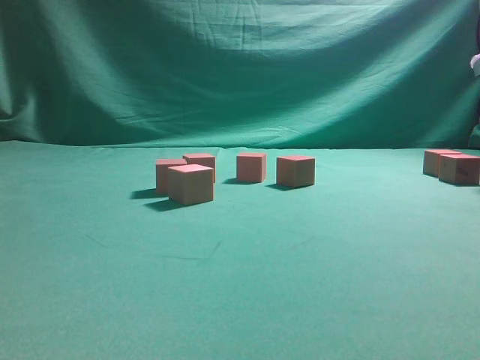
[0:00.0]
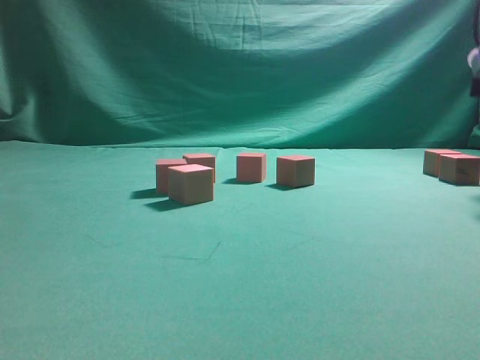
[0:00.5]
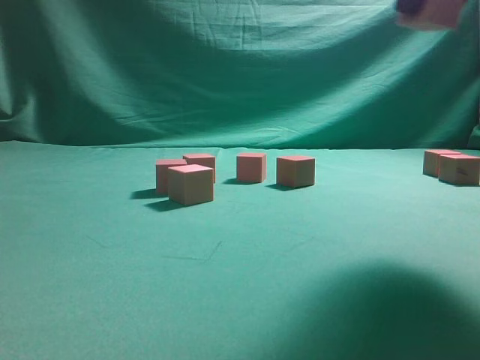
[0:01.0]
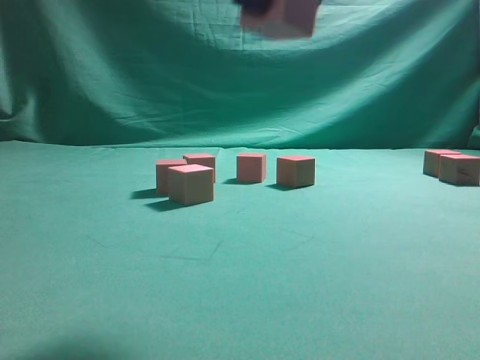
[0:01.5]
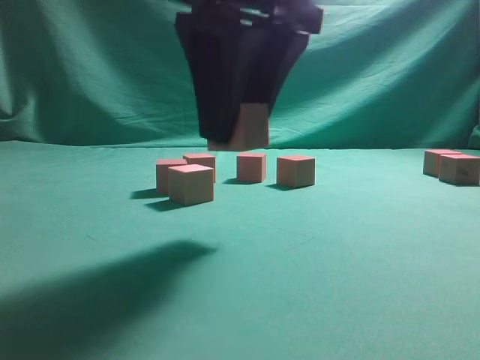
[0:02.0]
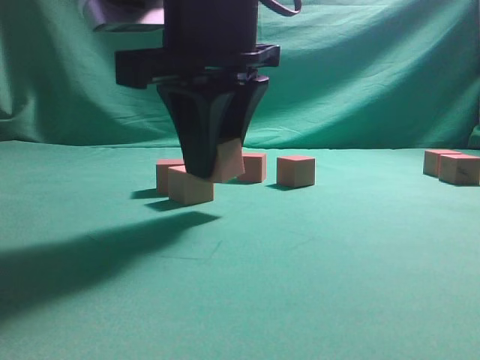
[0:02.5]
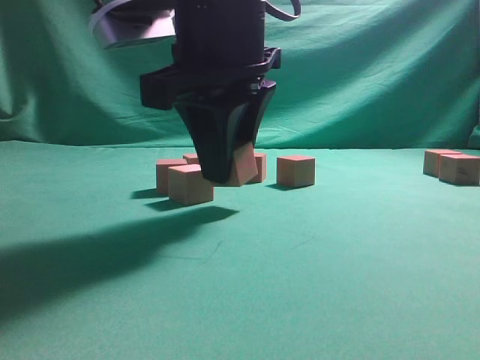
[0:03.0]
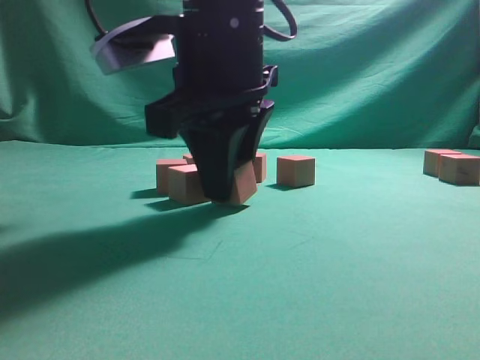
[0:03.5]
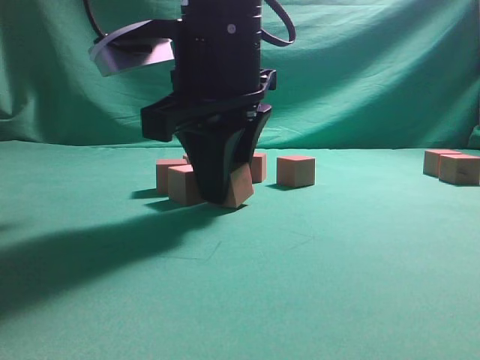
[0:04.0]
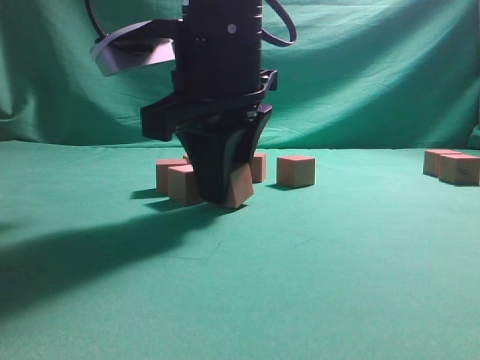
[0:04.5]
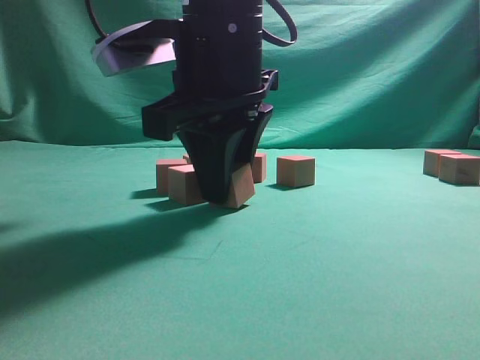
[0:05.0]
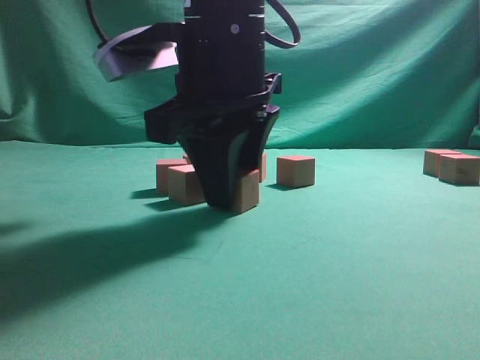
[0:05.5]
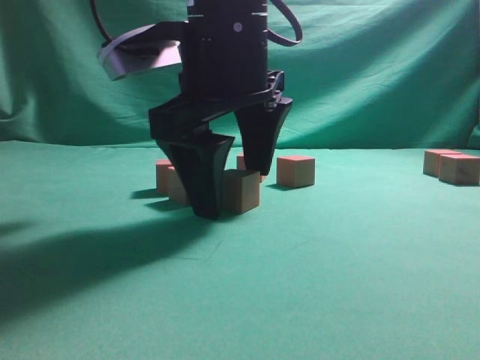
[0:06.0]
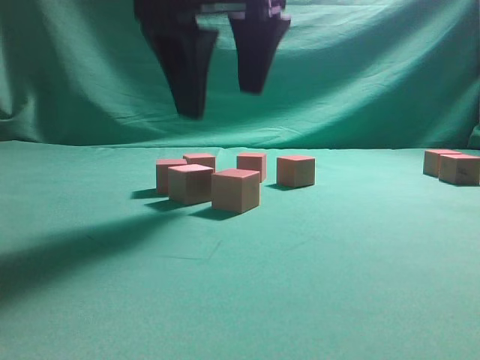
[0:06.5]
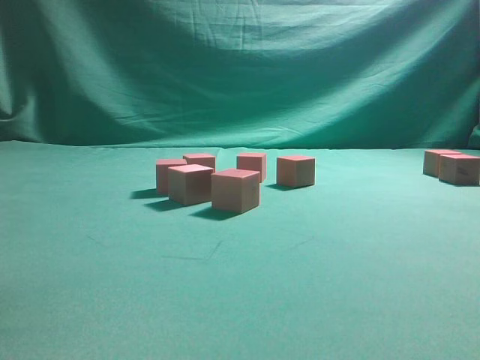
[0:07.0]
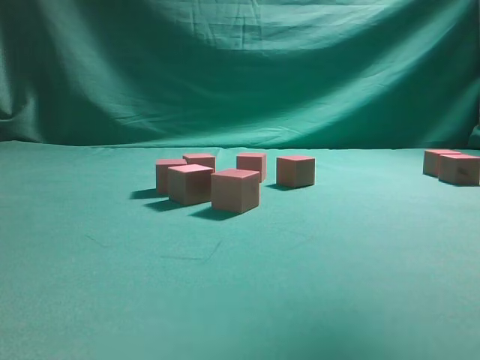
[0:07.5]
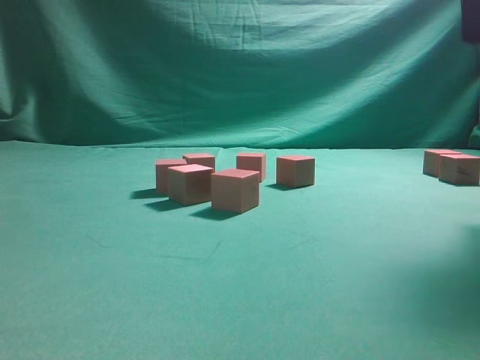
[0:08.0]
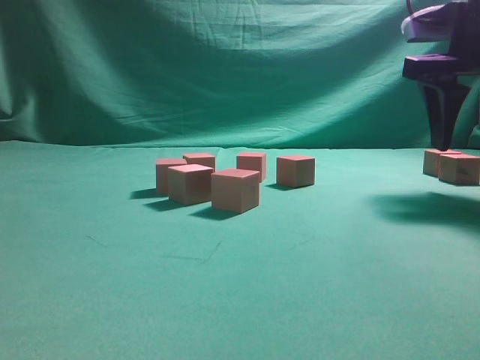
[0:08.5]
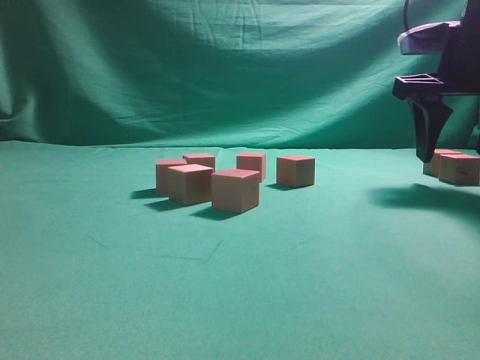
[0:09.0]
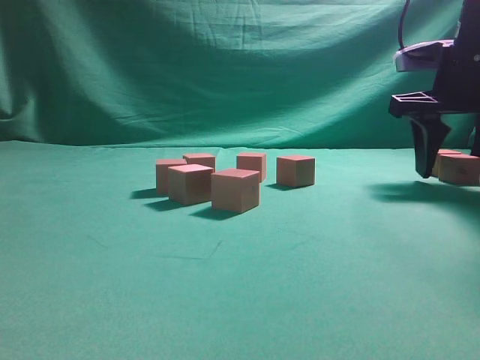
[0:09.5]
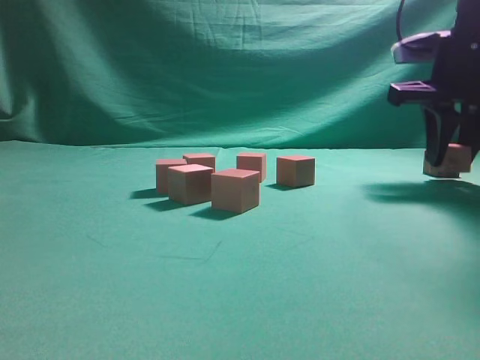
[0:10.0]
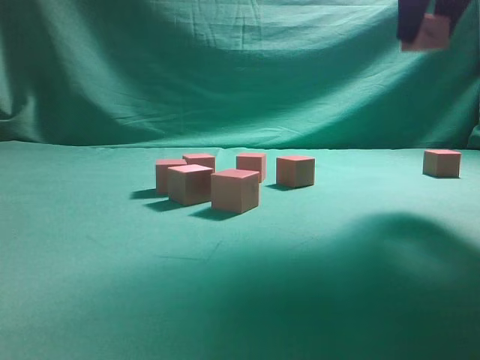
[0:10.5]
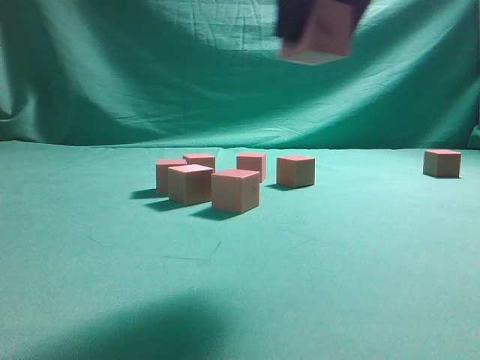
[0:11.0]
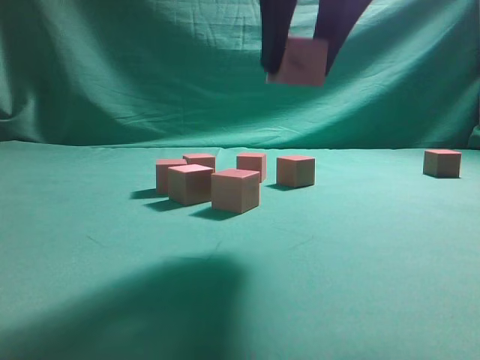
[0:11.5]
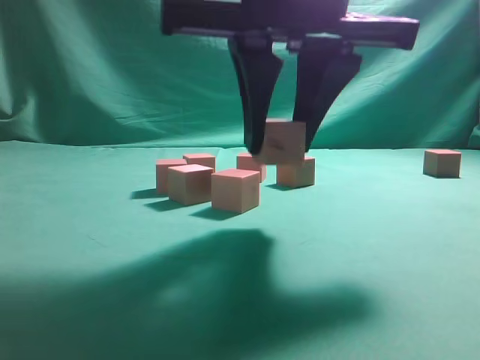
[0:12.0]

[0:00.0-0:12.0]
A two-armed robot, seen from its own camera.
Task of the whole recording: pick up the multiple cubes in two columns one by one and place them in another position on the table.
Step, 0:02.0 to 0:06.5: Place the block at the correct position to assemble the letter S.
Step, 0:07.0 to 0:10.0: Pick up the block on the table.
0:00.0 to 0:02.0: The right gripper goes roughly 35 cm to the left and backward.
0:02.0 to 0:04.0: The right gripper shifts about 10 cm forward and downward.
0:04.0 to 0:06.0: The right gripper opens its fingers.
0:06.0 to 0:08.0: The right gripper travels to the right and upward by some 30 cm.
0:08.0 to 0:10.0: The right gripper moves downward and forward, some 15 cm, and closes.
0:10.0 to 0:12.0: The right gripper heads to the left and backward, covering roughly 25 cm.

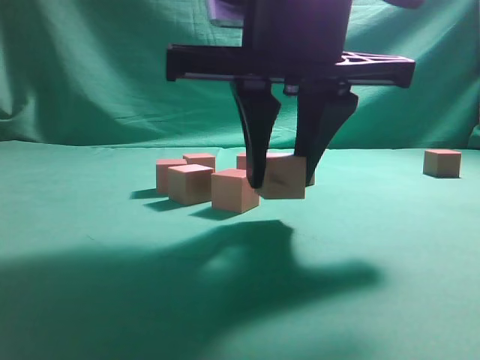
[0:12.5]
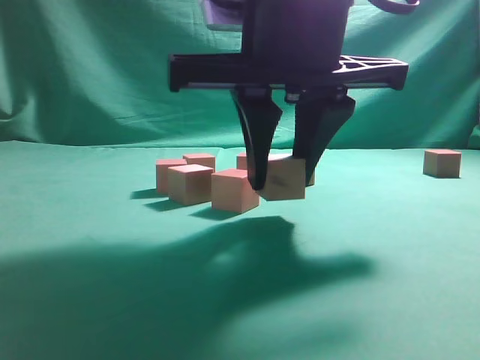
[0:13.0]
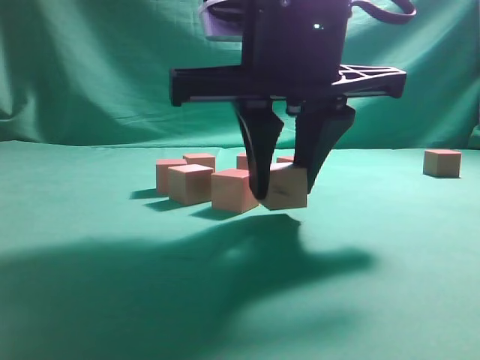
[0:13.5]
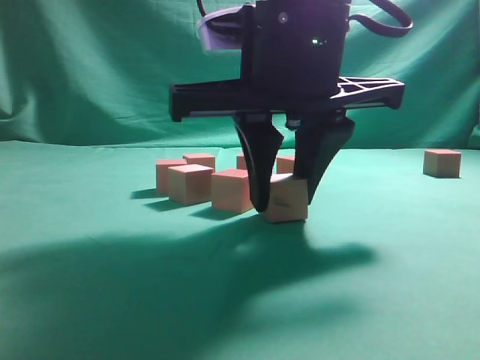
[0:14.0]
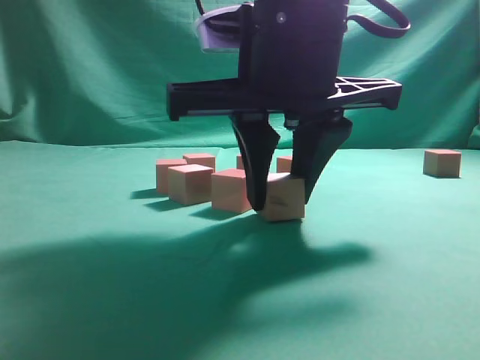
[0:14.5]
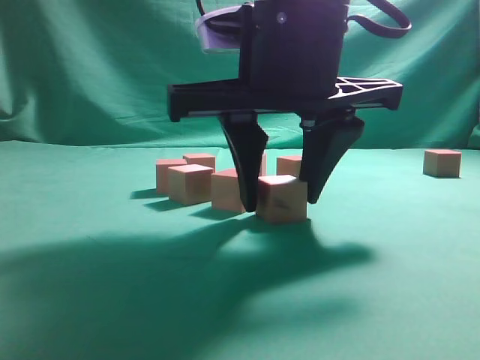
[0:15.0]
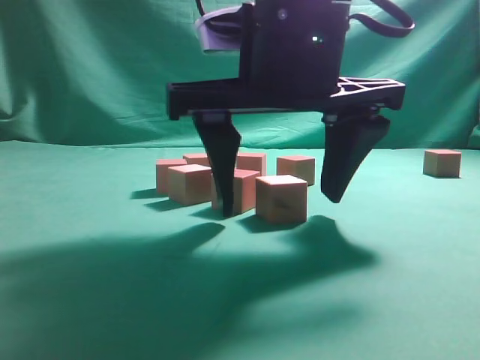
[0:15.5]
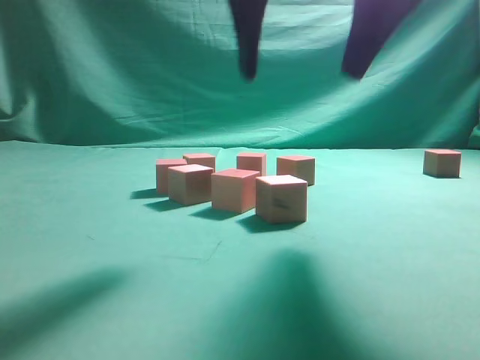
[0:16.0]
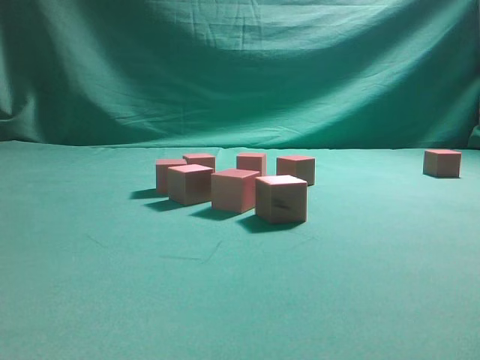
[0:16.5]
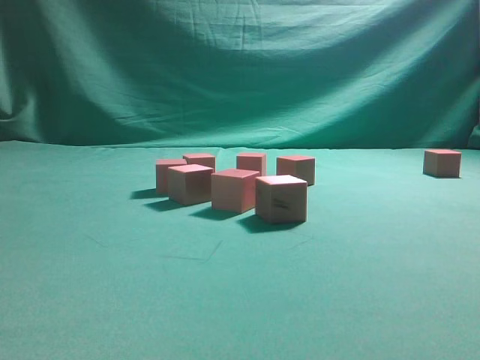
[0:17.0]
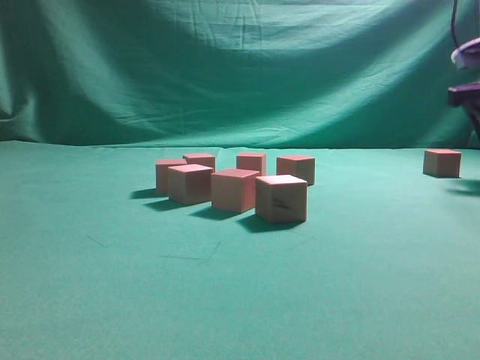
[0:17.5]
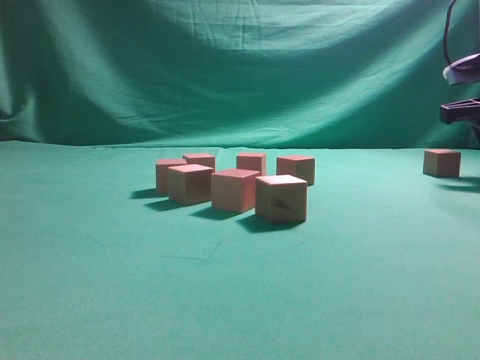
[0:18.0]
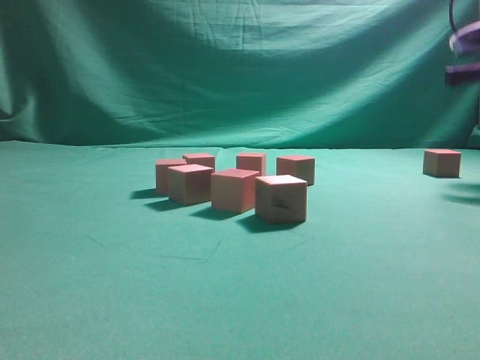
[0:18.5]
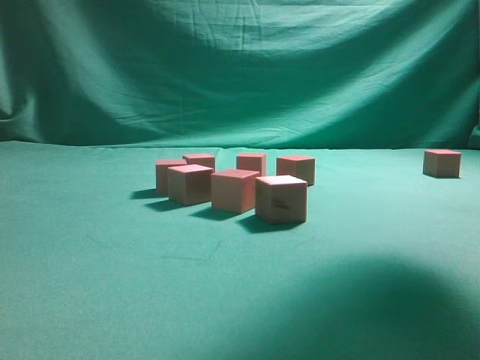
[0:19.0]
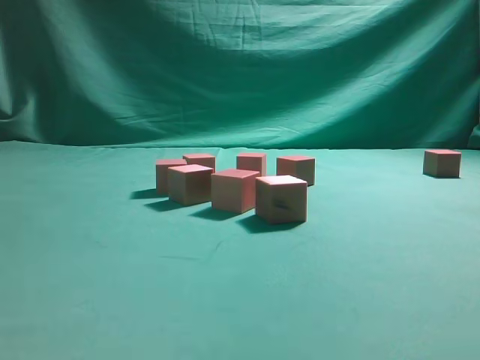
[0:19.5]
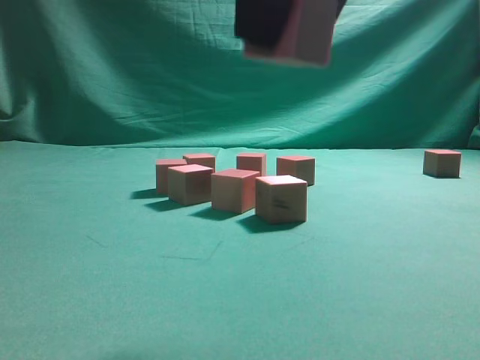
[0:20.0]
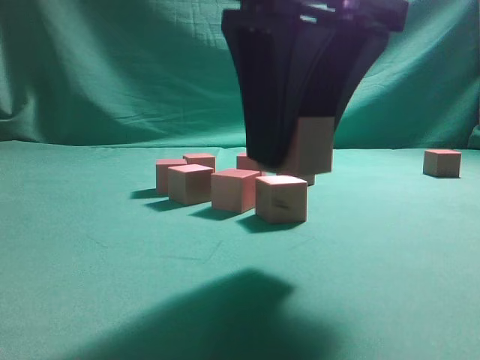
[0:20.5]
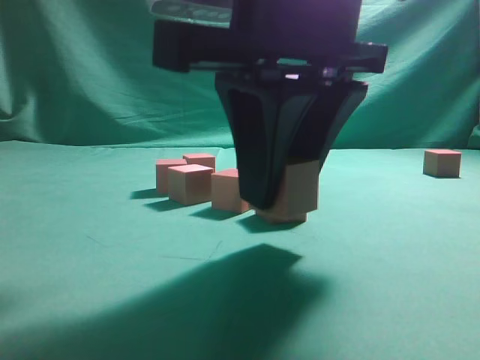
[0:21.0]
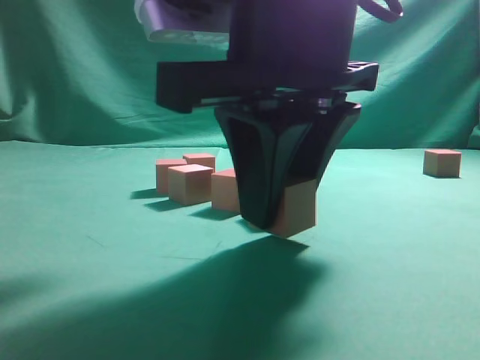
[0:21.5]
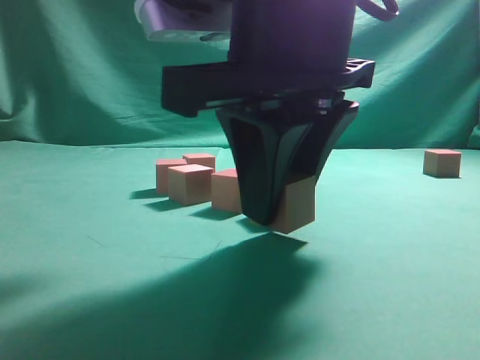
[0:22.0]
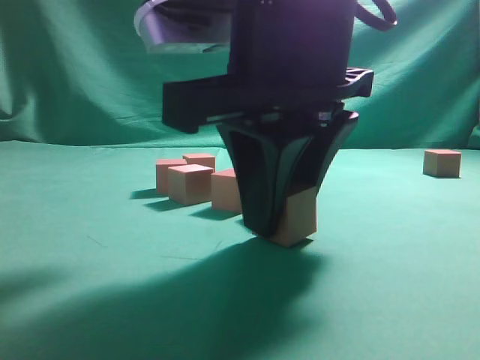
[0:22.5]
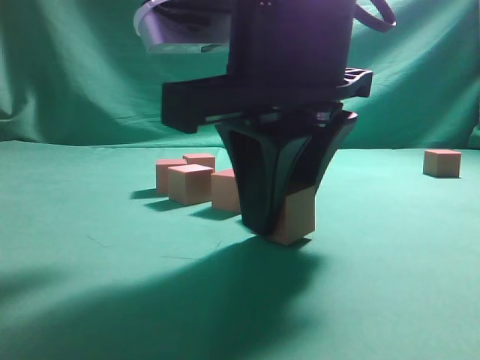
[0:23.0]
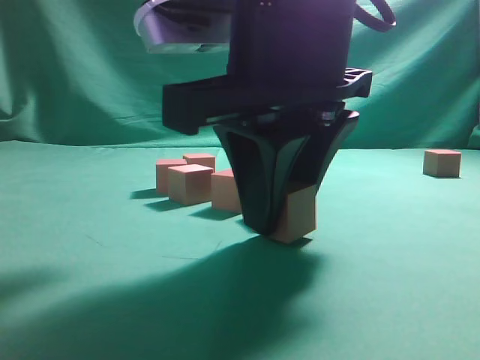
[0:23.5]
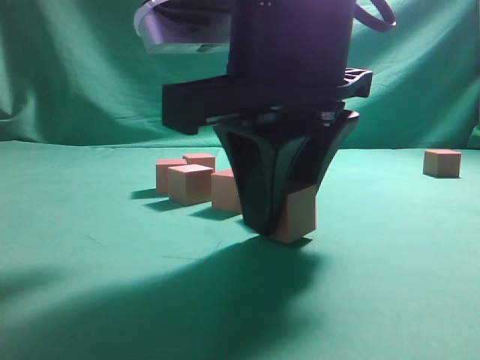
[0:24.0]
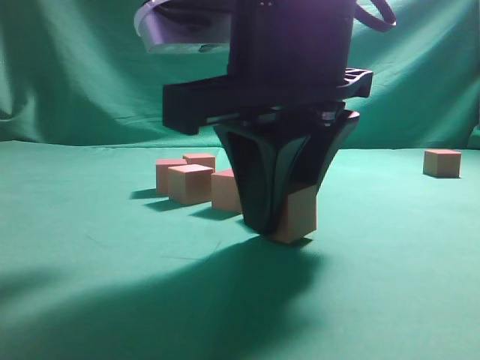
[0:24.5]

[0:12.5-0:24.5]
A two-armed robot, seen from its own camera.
Task of the whole recording: pick up the multiple cubes in two columns one by one and place them in another position on the table.
Step, 0:12.5 to 0:16.0: Place the block at the correct position to assemble the letter S.
Step, 0:16.5 to 0:18.5: Pick up the block on the table.
0:12.5 to 0:14.5: The grippers move only a little.
0:14.5 to 0:16.5: The right gripper goes roughly 25 cm upward and to the right, and opens up.
0:16.5 to 0:18.5: The right gripper is displaced forward, downward and to the right by some 25 cm, and closes its fingers.
0:18.5 to 0:20.5: The right gripper moves to the left and backward, some 35 cm.
0:20.5 to 0:22.5: The right gripper shifts by some 5 cm.
0:22.5 to 0:24.5: The two grippers keep their place.

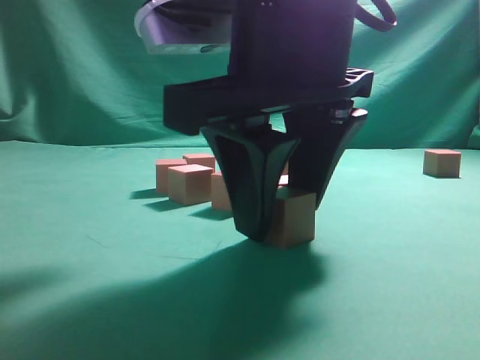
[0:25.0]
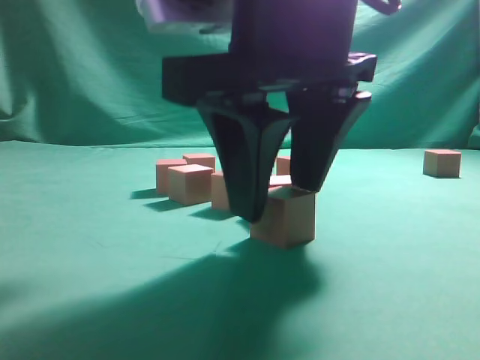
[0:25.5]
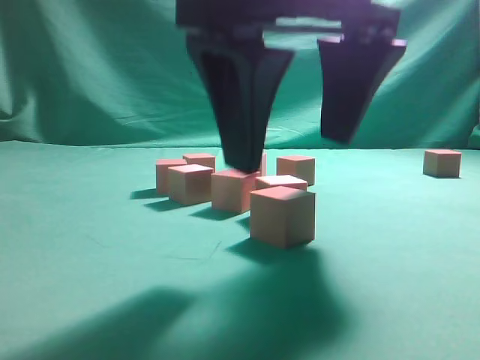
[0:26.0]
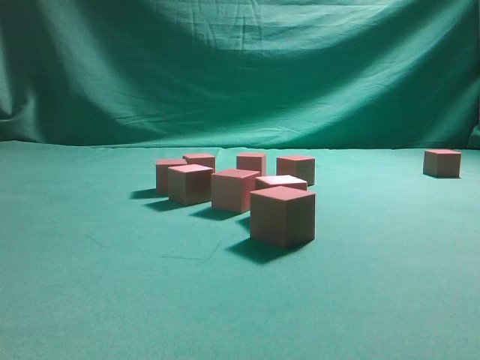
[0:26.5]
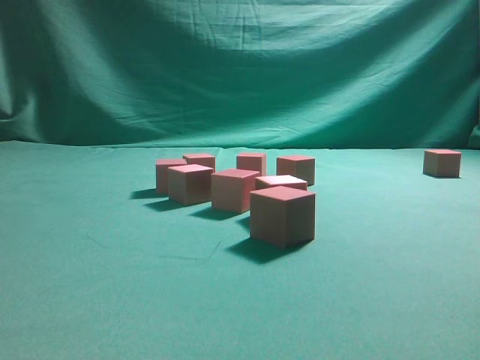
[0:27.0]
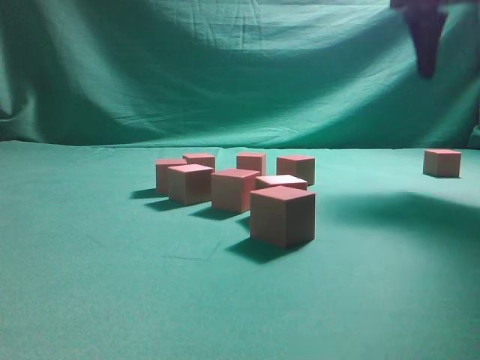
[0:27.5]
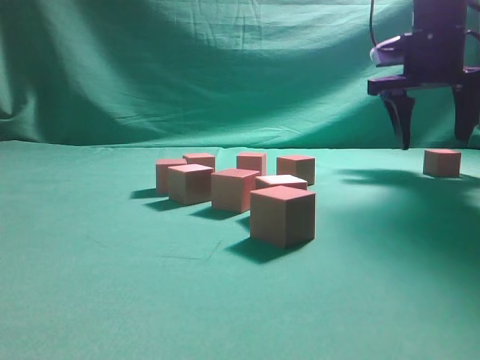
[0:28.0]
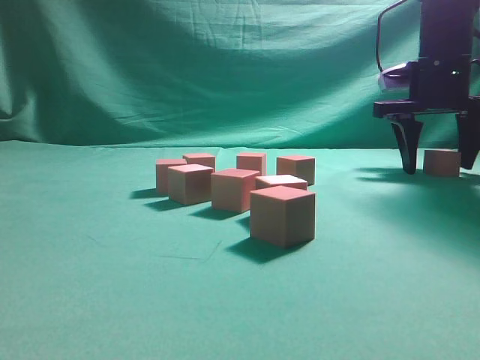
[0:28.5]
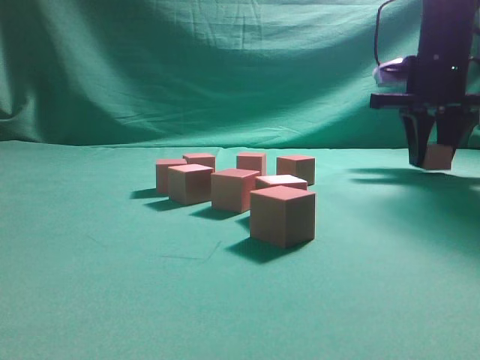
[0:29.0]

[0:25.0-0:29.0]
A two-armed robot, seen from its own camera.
Task of the whole recording: pick up the multiple cubes in two columns one by one and place them in another position on the table.
0:25.0 to 0:27.0: The right gripper goes about 25 cm upward and to the right.
0:27.0 to 0:29.0: The right gripper heads forward and downward, covering approximately 30 cm, and closes up.
